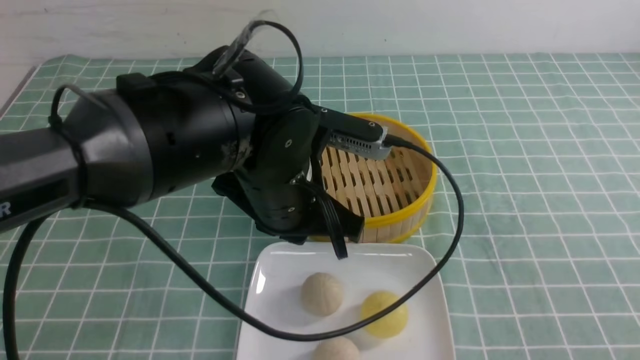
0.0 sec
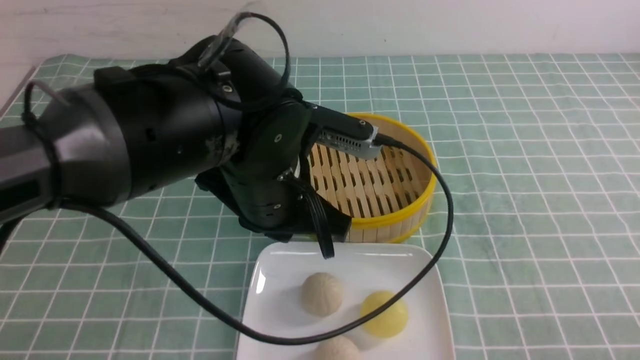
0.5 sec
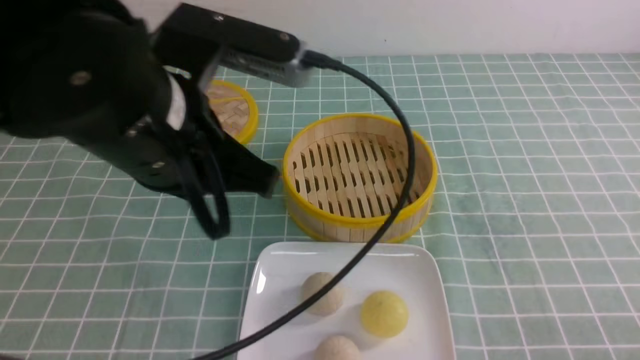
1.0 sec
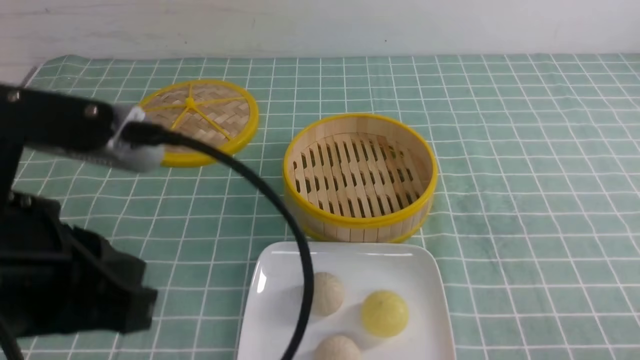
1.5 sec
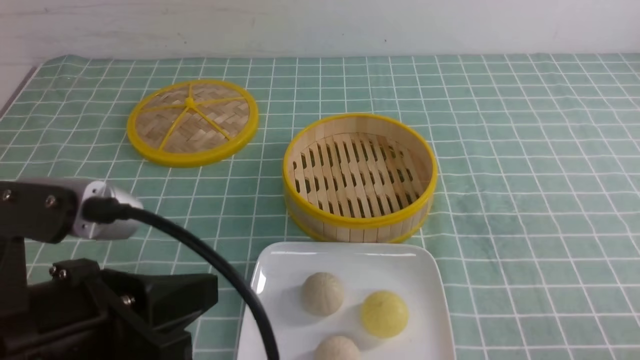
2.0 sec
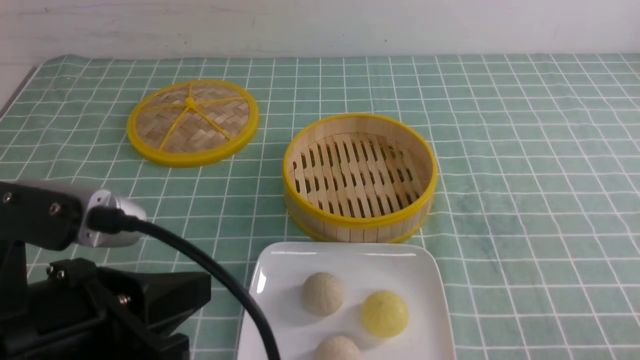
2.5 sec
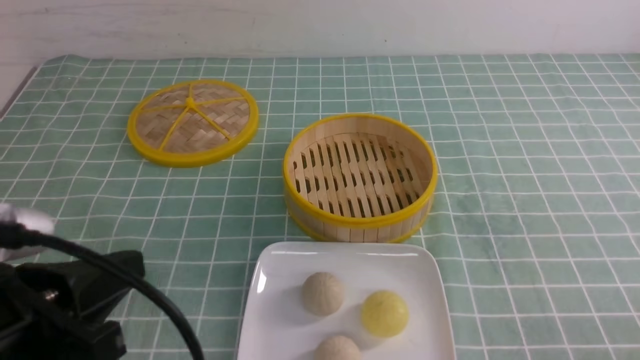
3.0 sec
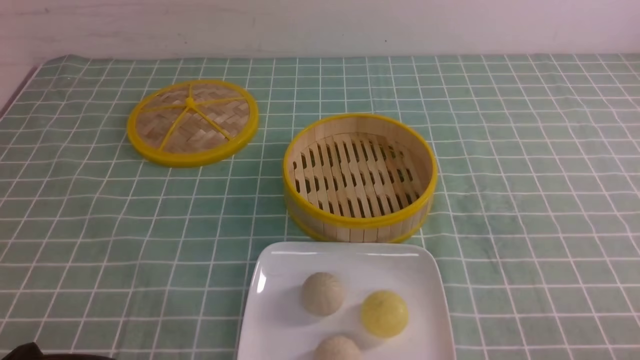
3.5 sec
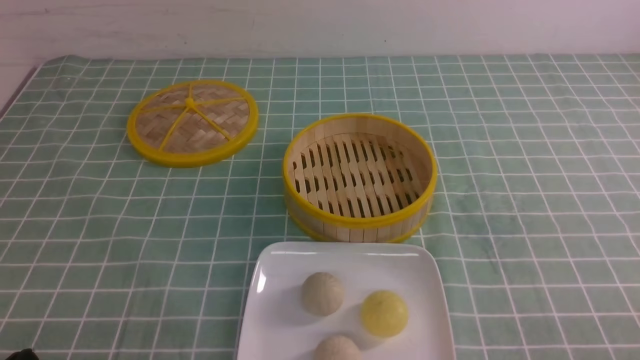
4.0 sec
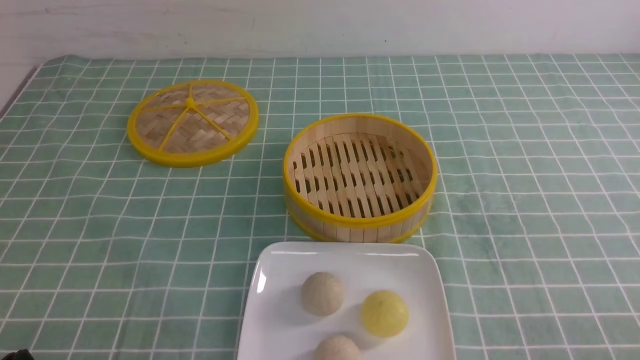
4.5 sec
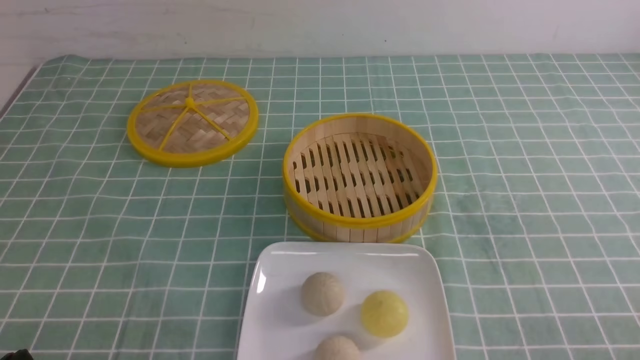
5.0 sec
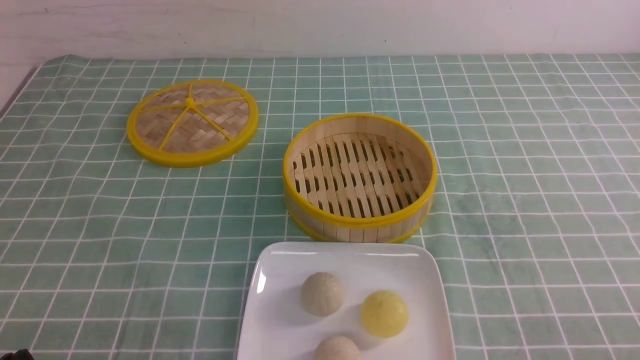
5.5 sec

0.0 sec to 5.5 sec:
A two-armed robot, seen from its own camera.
0.0 sec to 2.0 sec: The right gripper is displaced downward by roughly 5 cm. The left gripper travels backward and to the left by some 20 cm.
2.0 sec to 3.5 sec: The left gripper heads downward and to the left, covering approximately 15 cm.

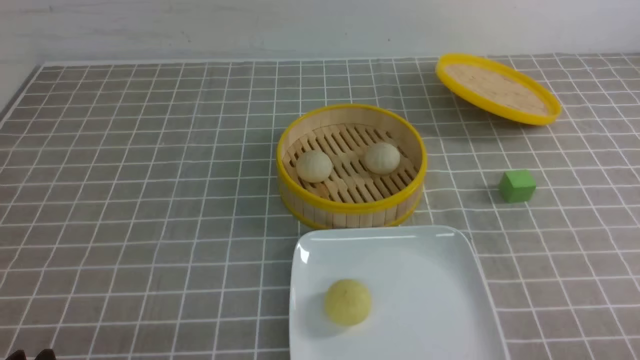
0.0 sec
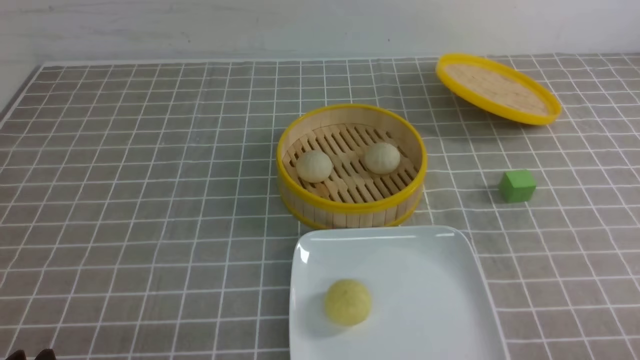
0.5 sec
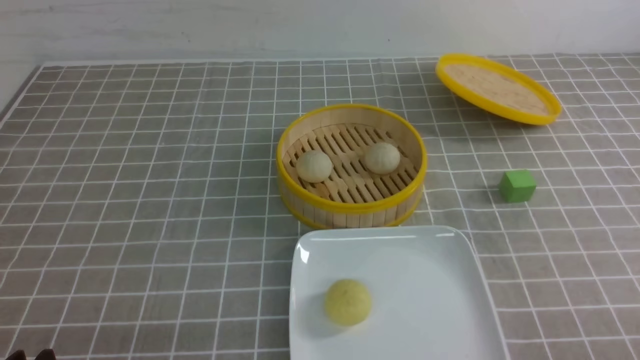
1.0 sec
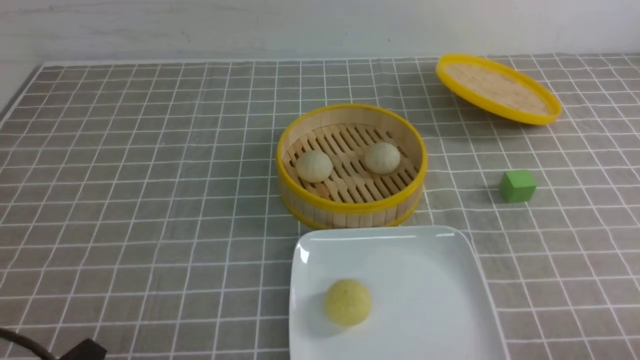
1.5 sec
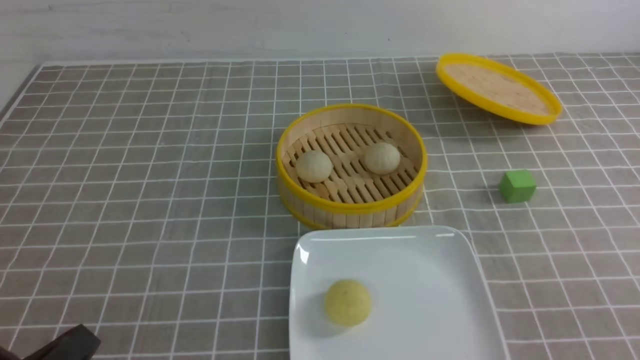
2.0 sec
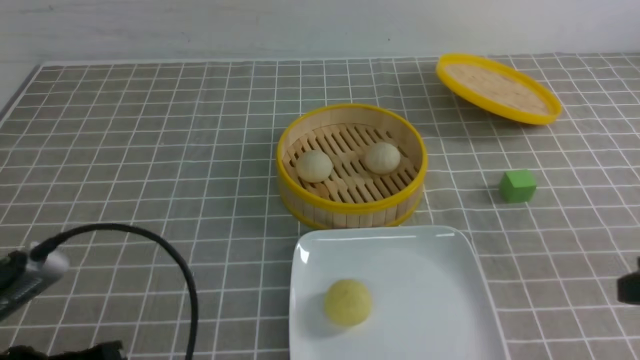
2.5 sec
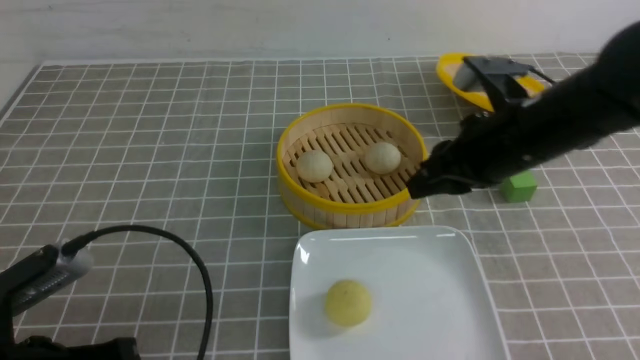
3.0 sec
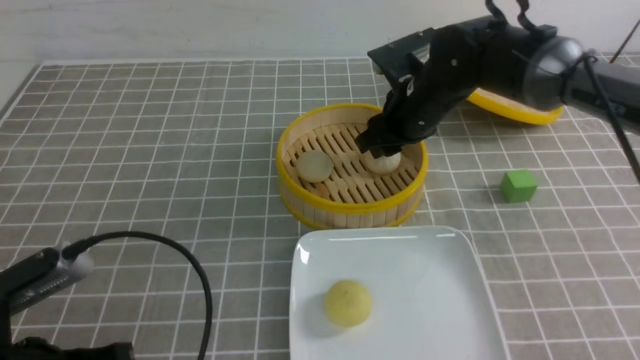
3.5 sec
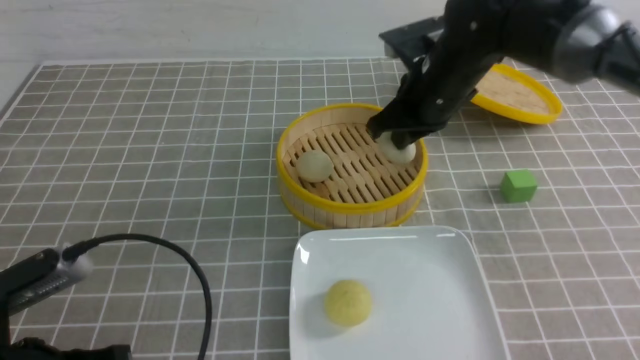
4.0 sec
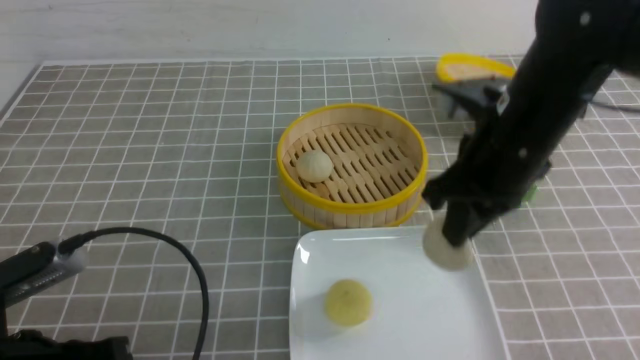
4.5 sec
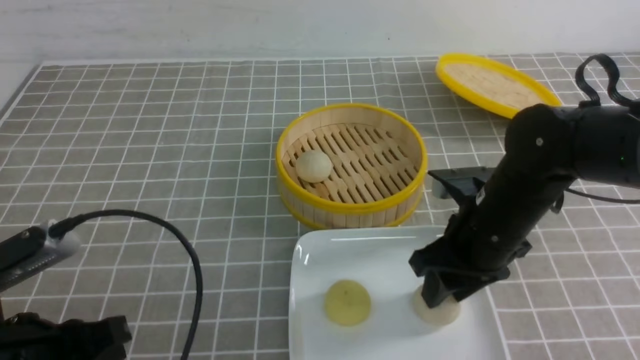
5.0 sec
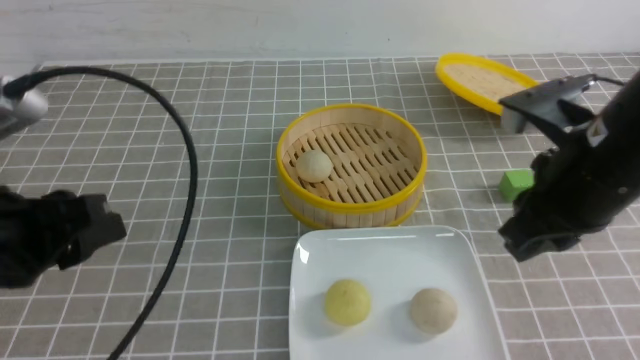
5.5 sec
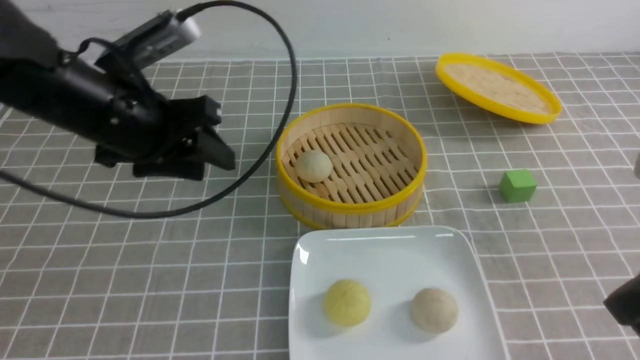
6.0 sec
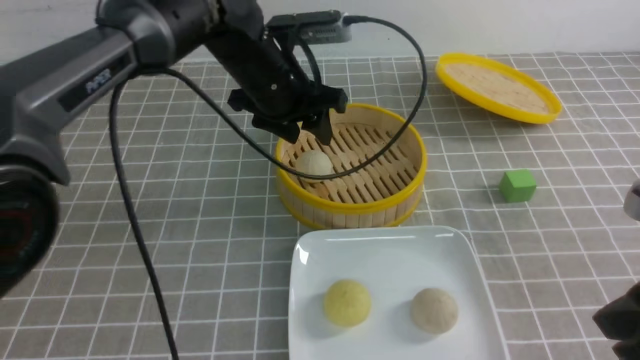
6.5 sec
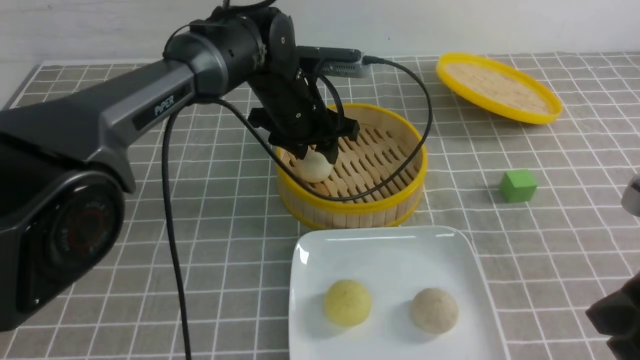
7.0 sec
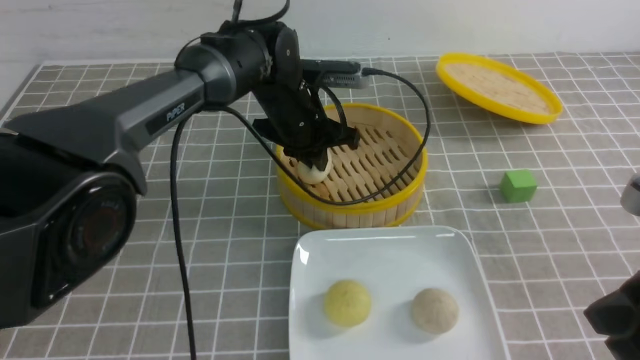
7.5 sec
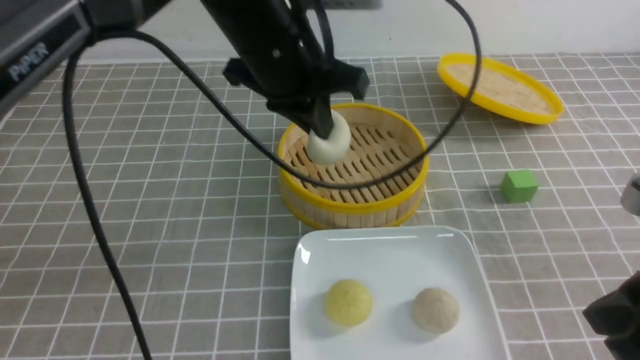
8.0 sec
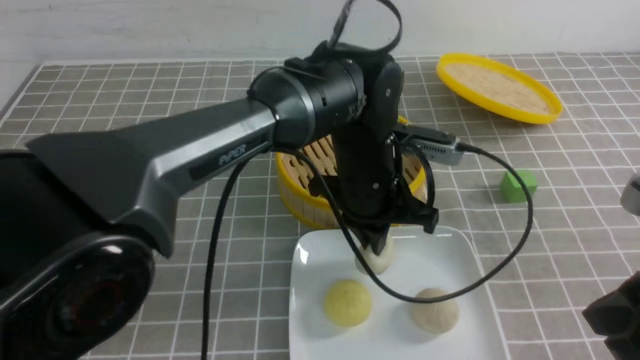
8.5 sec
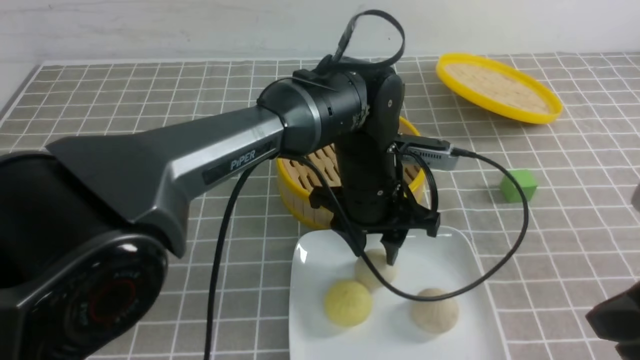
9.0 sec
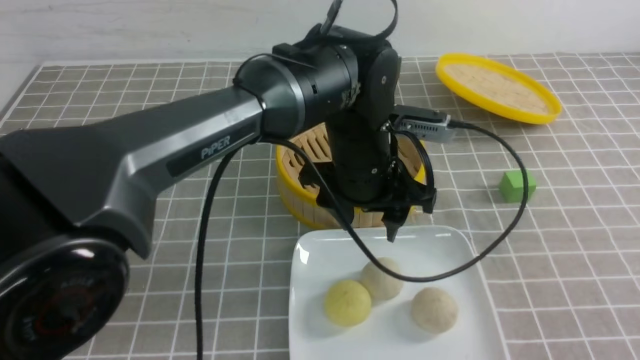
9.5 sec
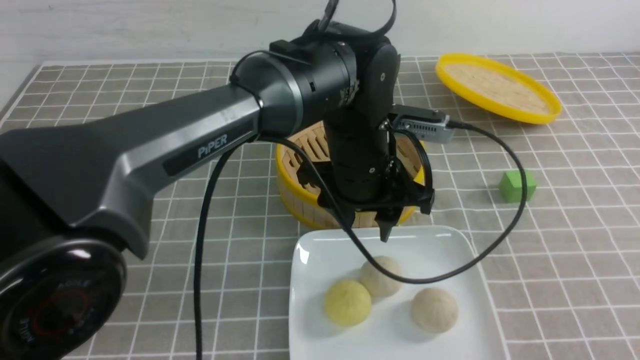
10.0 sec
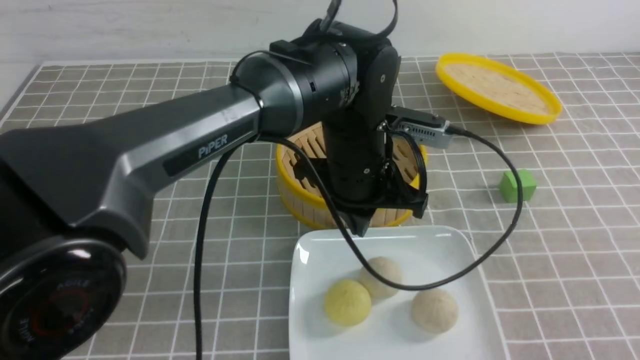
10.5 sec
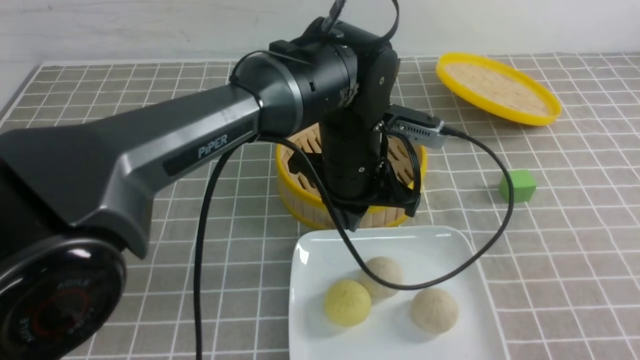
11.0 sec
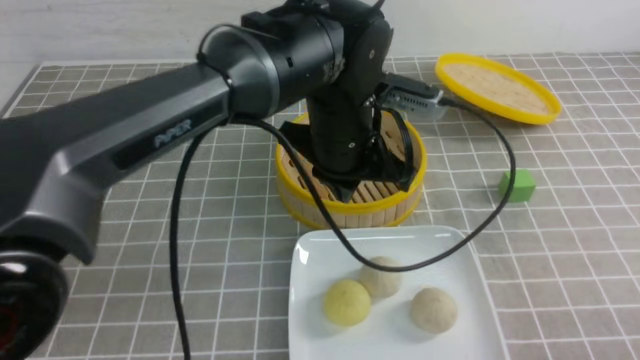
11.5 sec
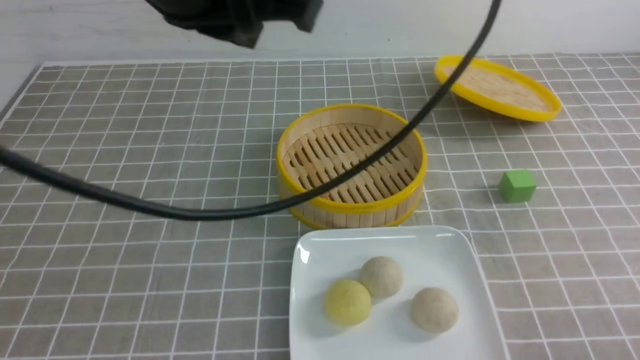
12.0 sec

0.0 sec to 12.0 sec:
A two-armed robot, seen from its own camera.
Step, 0.0 sec to 3.5 sec: use the right arm to grab the steamed stuffed bun that is closest to it.
Step, 4.0 sec to 5.0 sec: use the right arm to put the steamed stuffed bun into the plate.
Step, 5.5 sec to 7.5 sec: use the left arm to grab the steamed stuffed bun that is closest to it.
Step, 8.0 sec to 8.5 sec: use the left arm to put the steamed stuffed bun into the plate.
0.0 sec to 2.0 sec: The left gripper travels upward by about 5 cm.
2.0 sec to 4.0 sec: The right gripper travels forward and to the left by roughly 40 cm, and opens, then closes again. Meanwhile the left gripper heads forward, covering about 5 cm.
4.0 sec to 6.0 sec: The right gripper heads backward and to the right, covering some 25 cm, and opens, then closes once more. The left gripper goes some 25 cm forward and upward, and opens.
6.0 sec to 8.0 sec: The left gripper moves to the right, some 15 cm, and closes up.
8.0 sec to 10.0 sec: The left gripper travels downward and to the right by roughly 10 cm, and opens up; the right gripper travels backward and to the right by about 15 cm.
10.0 sec to 12.0 sec: The left gripper travels upward, to the left and backward by approximately 25 cm, and closes up; the right gripper is displaced downward by some 15 cm.

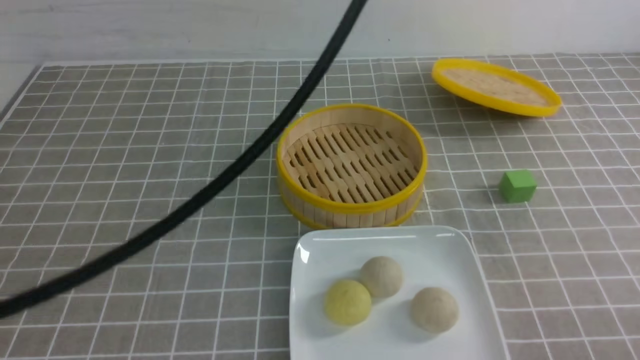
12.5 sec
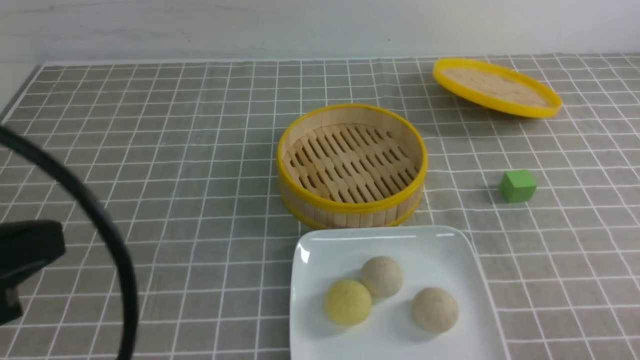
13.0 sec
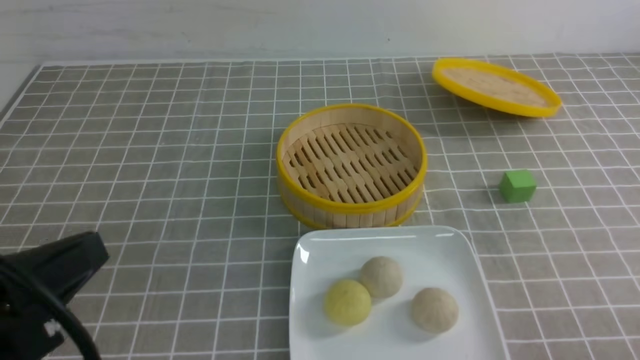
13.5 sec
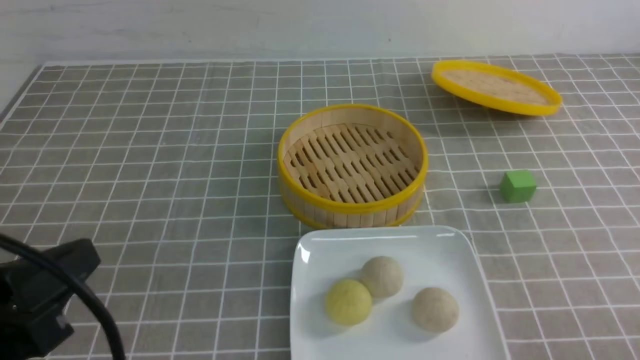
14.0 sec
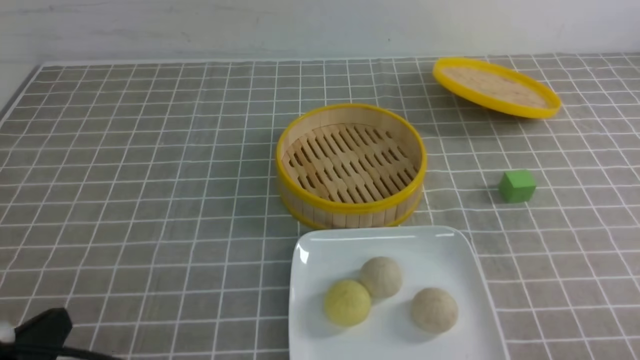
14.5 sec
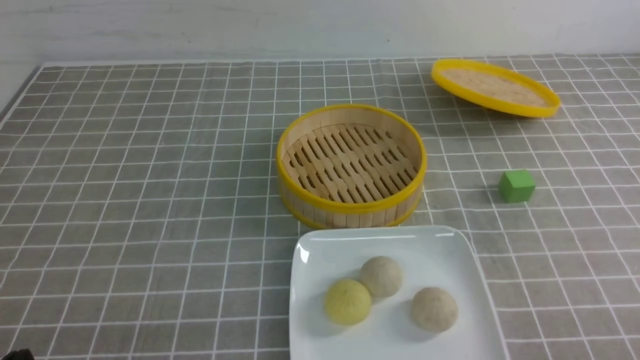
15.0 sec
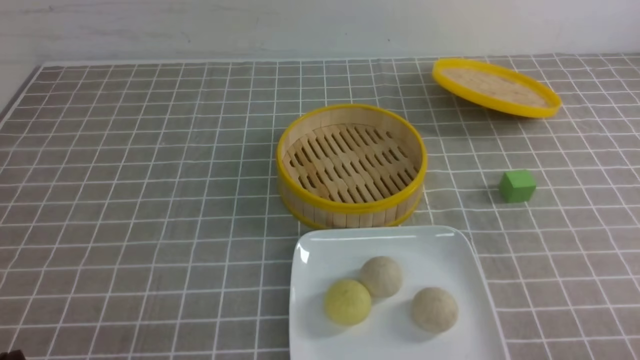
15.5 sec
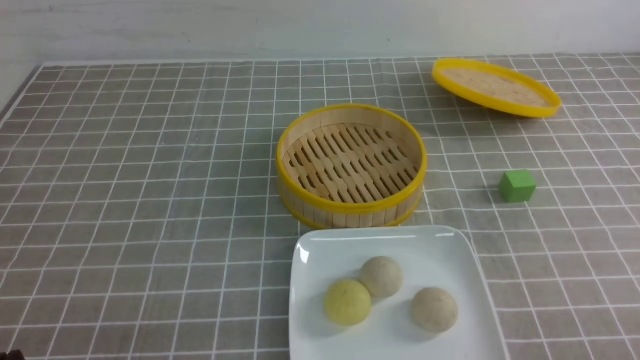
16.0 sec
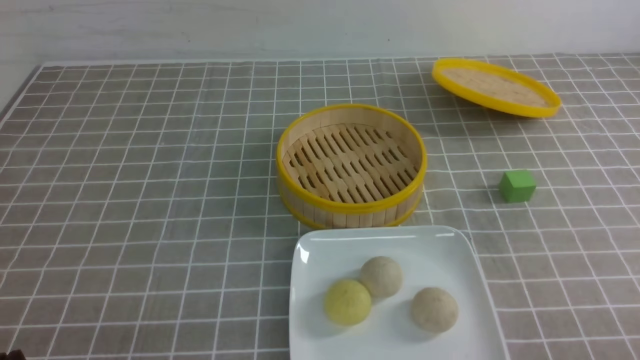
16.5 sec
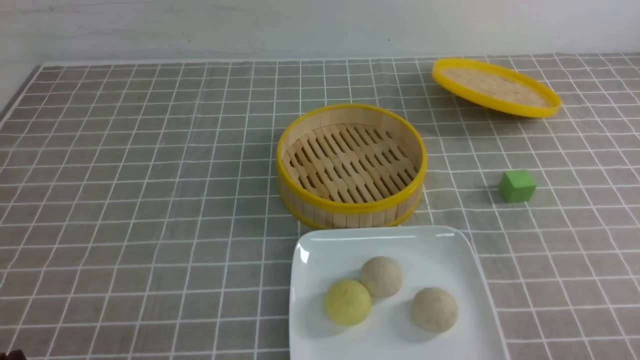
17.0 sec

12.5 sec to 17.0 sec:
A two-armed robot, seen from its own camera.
12.5 sec to 14.5 sec: The left gripper heads downward, covering about 30 cm.
14.5 sec to 17.0 sec: There are only small adjustments of the grippers.
